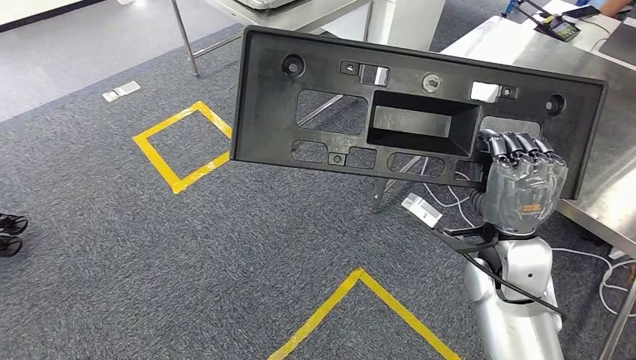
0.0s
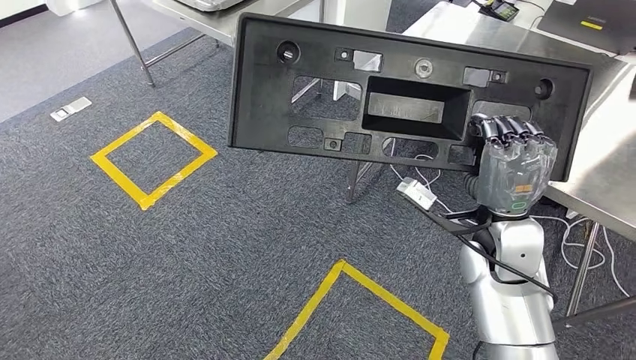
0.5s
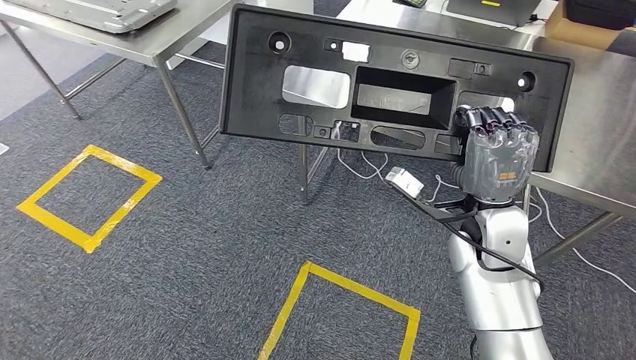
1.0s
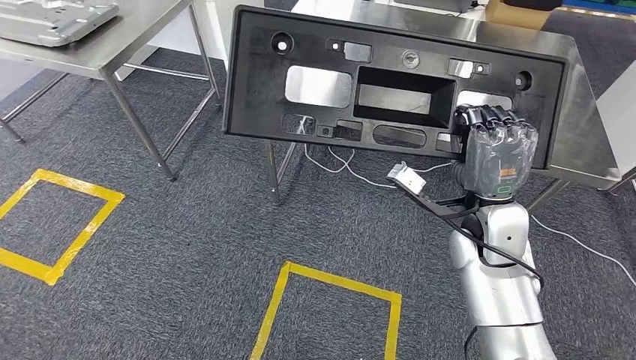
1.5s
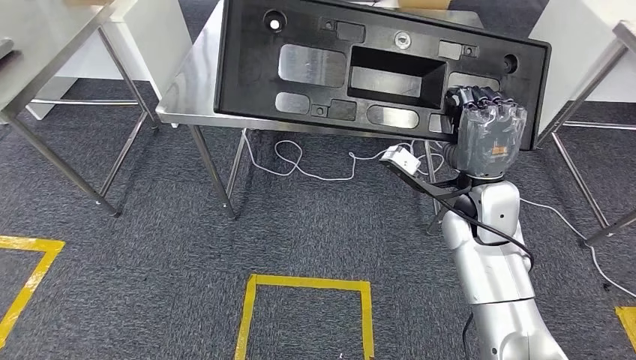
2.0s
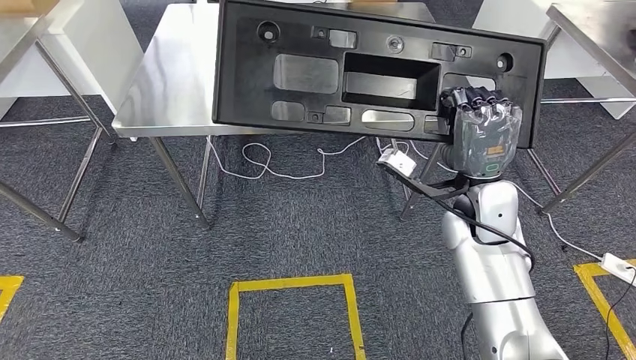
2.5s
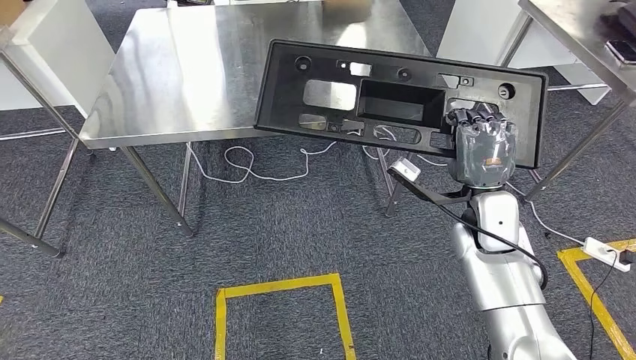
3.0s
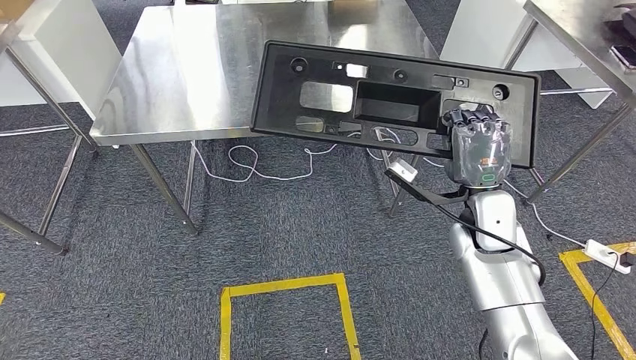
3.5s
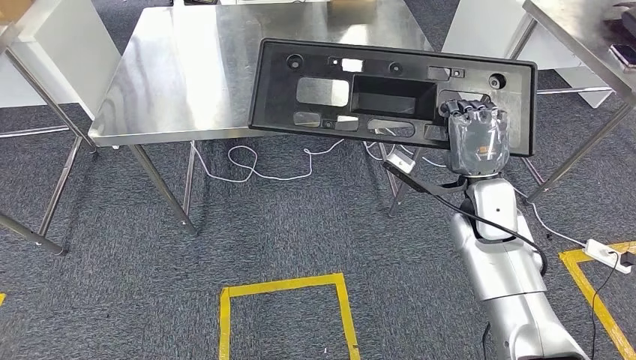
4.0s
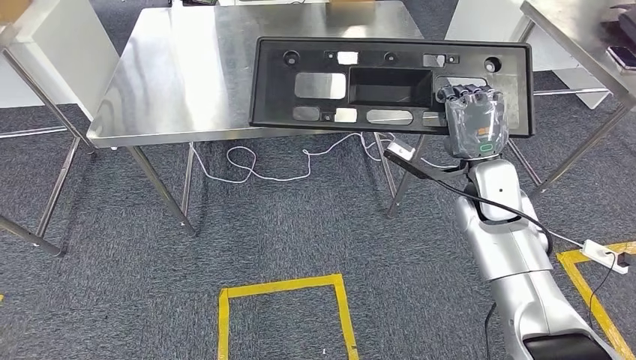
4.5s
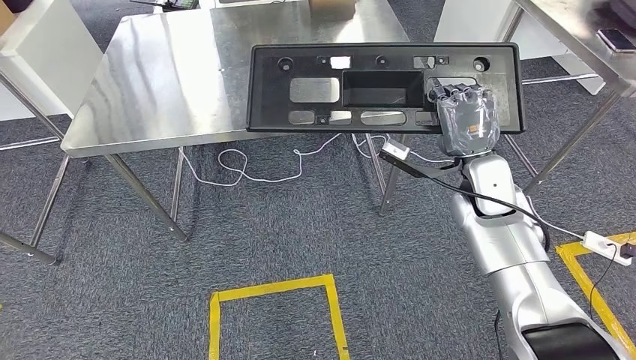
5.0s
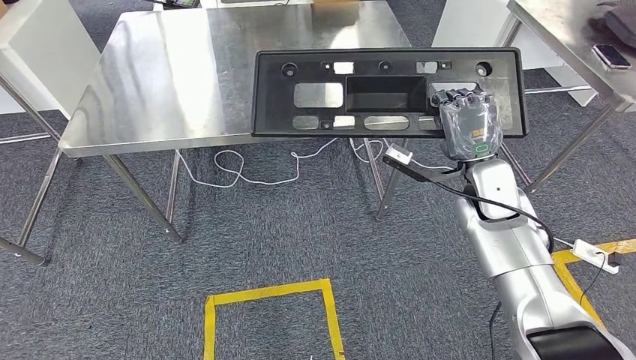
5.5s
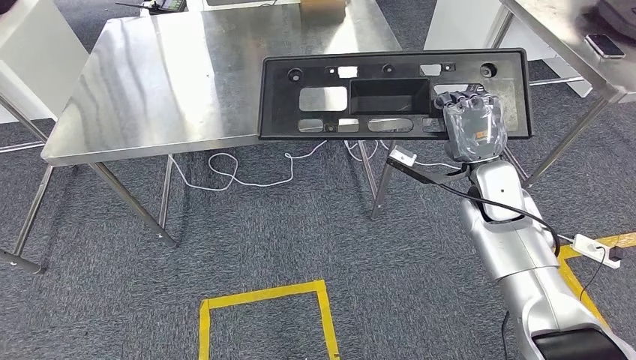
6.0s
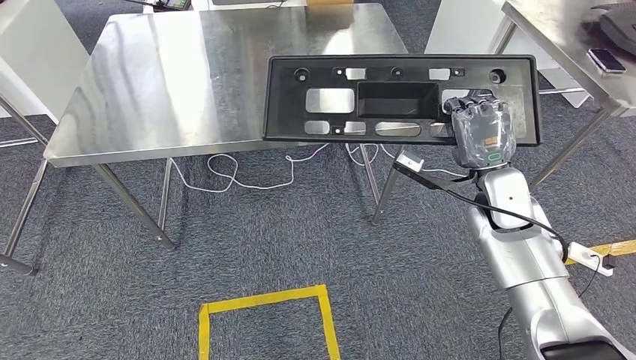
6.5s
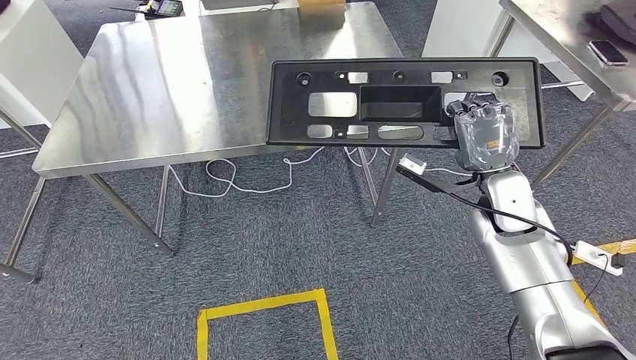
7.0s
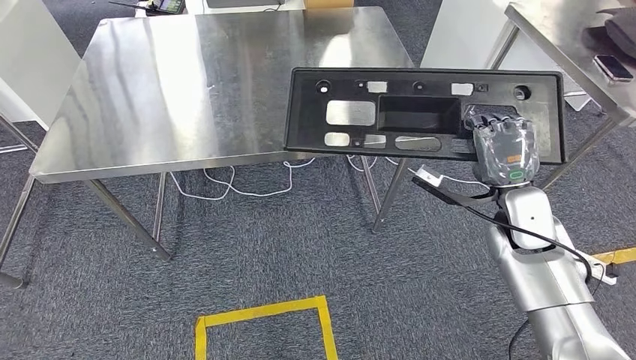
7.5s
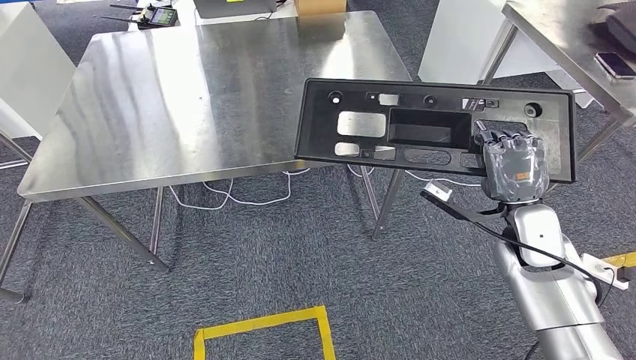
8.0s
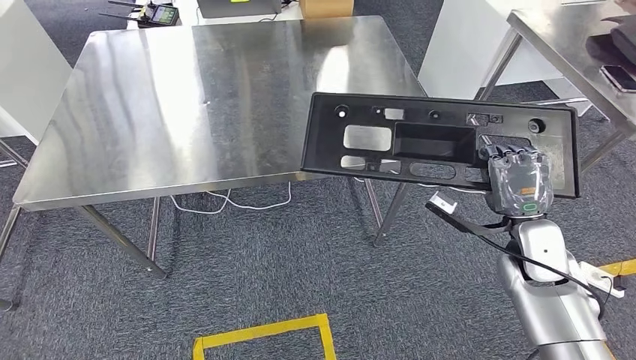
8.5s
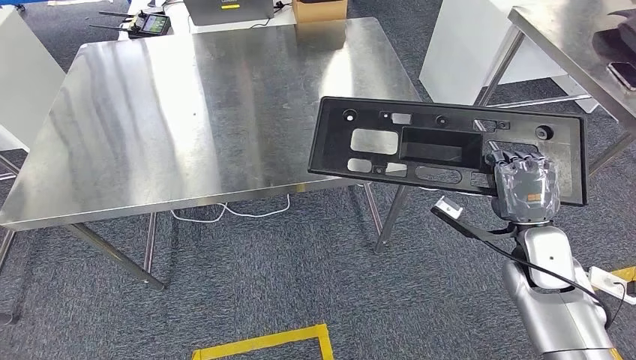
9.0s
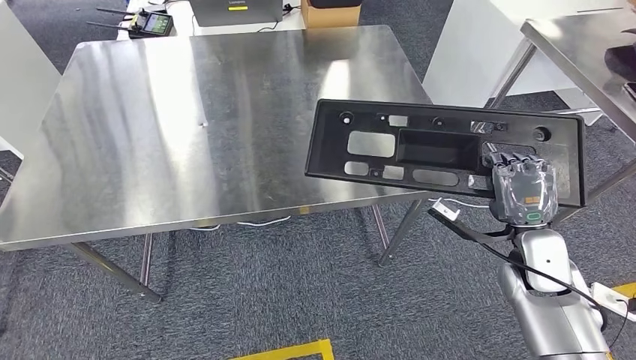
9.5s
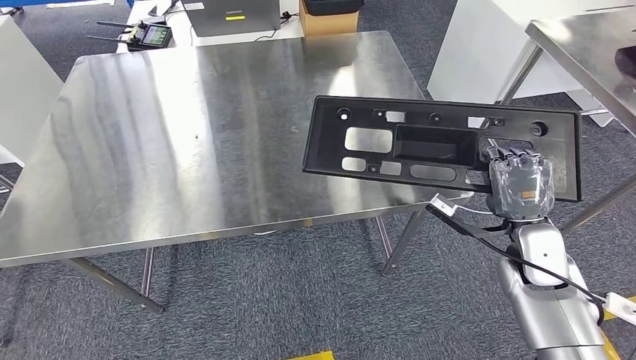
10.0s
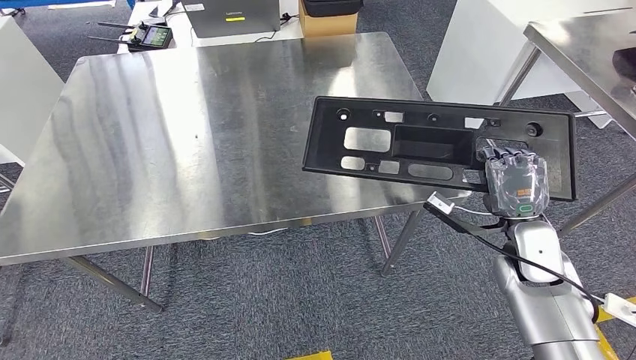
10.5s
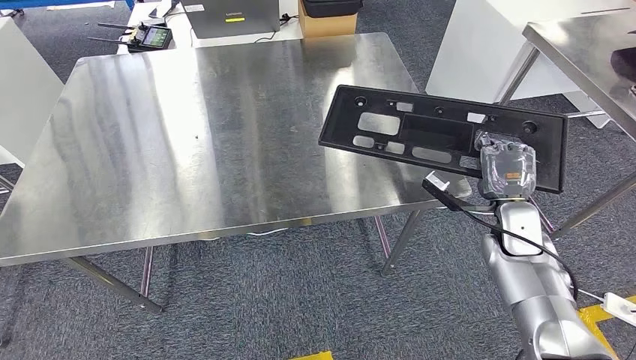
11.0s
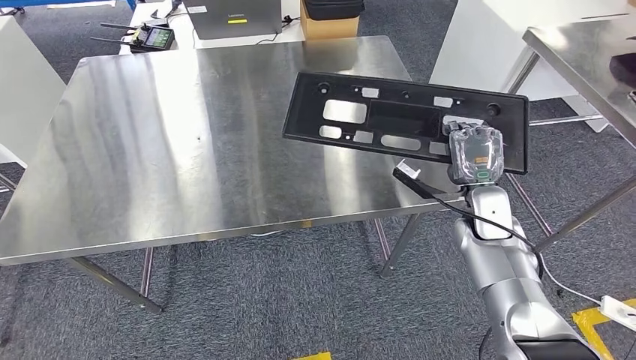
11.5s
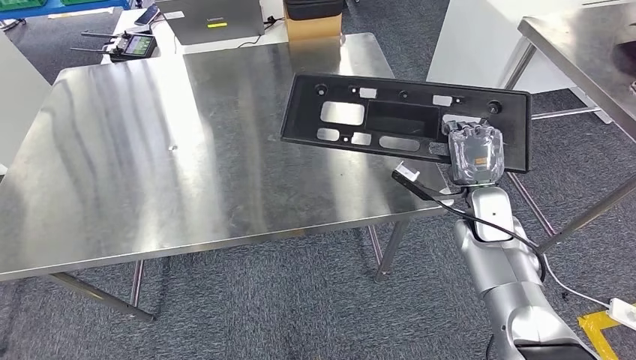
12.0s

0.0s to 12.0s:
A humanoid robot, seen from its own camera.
Step, 0.0s to 7.5s: Move the large material to the front of the workbench.

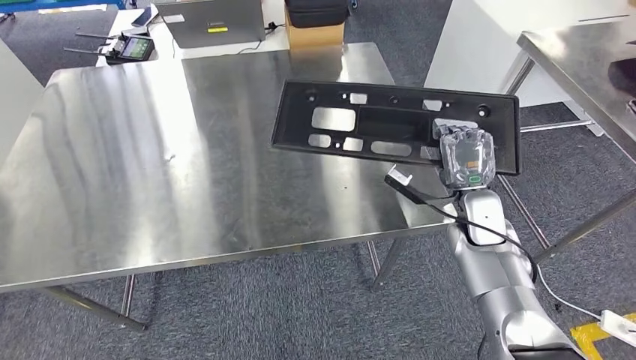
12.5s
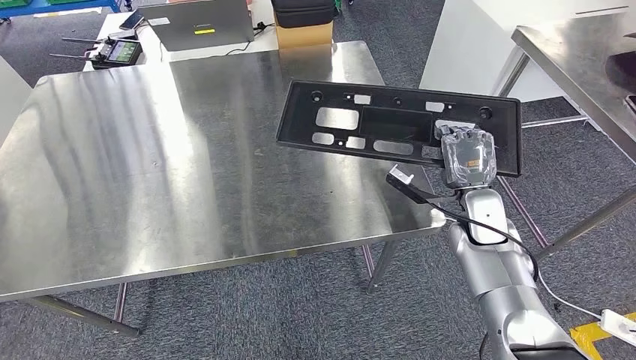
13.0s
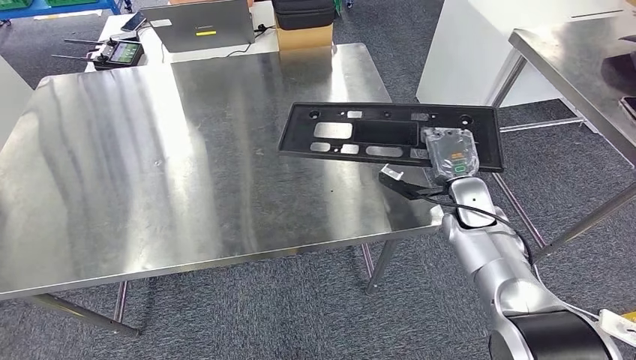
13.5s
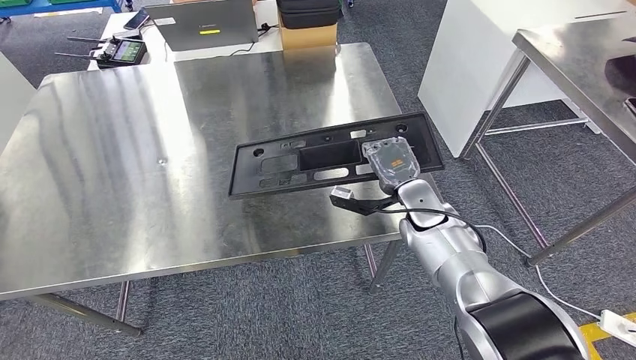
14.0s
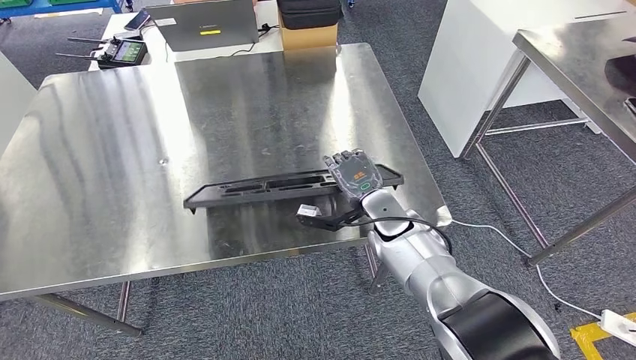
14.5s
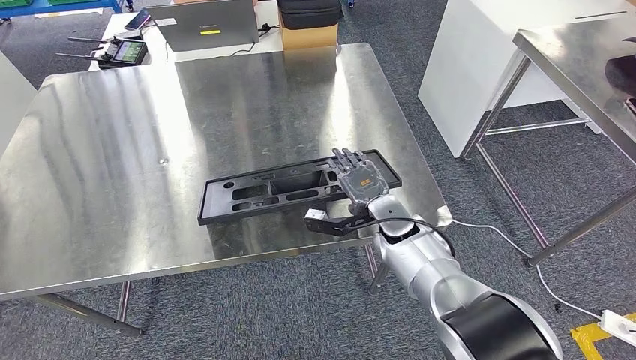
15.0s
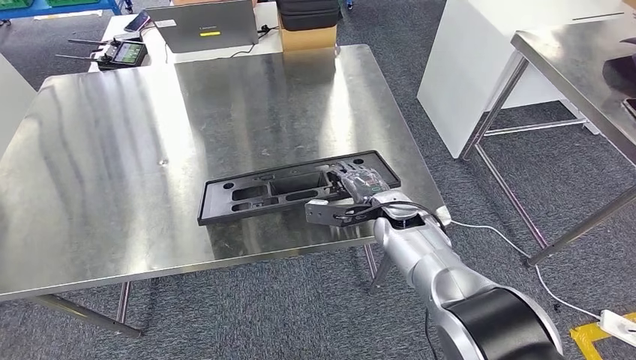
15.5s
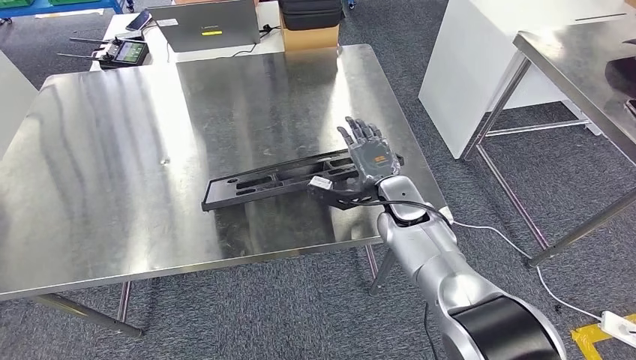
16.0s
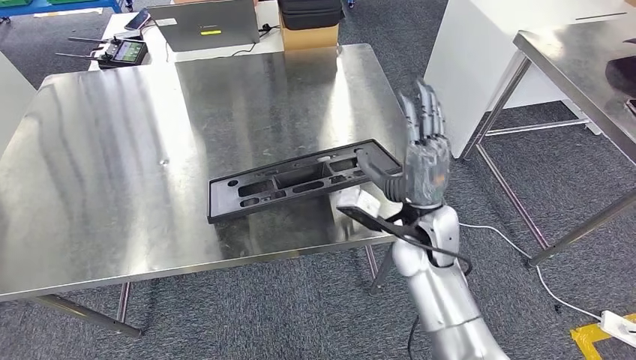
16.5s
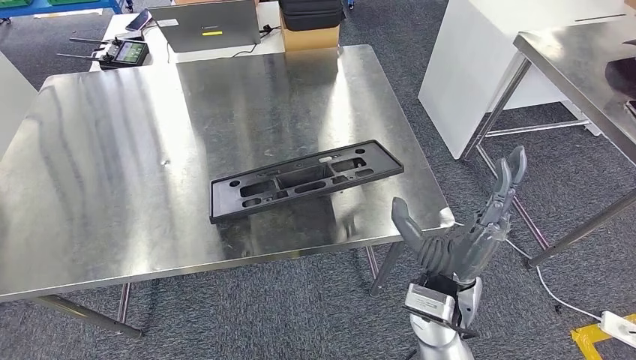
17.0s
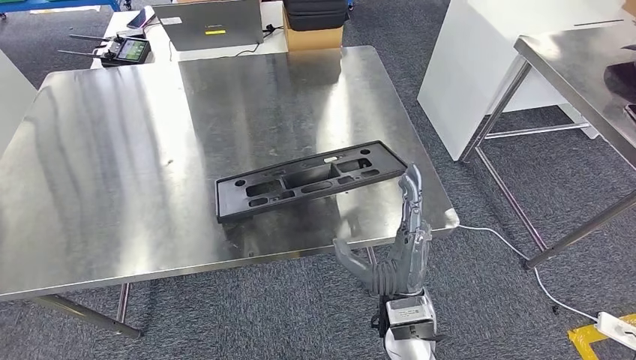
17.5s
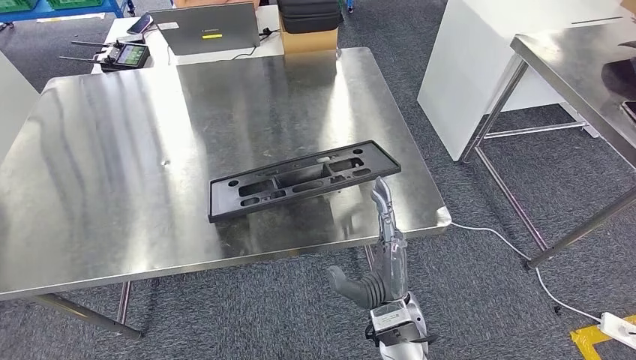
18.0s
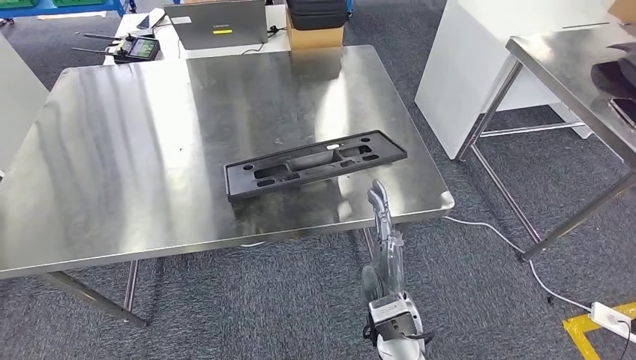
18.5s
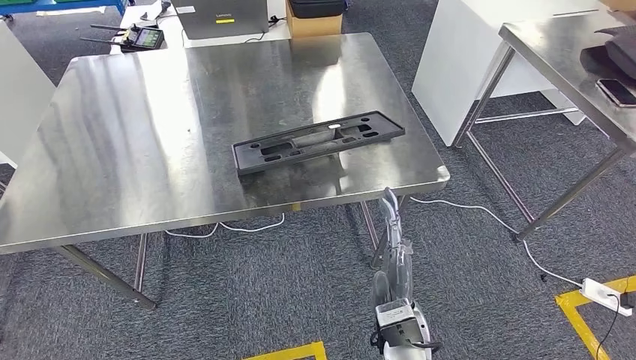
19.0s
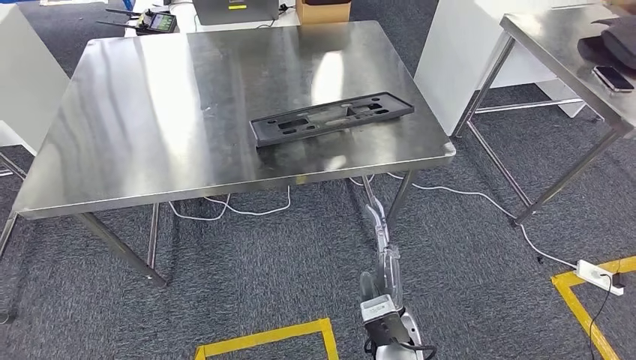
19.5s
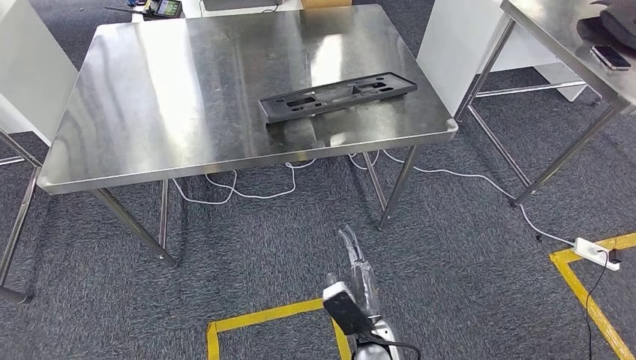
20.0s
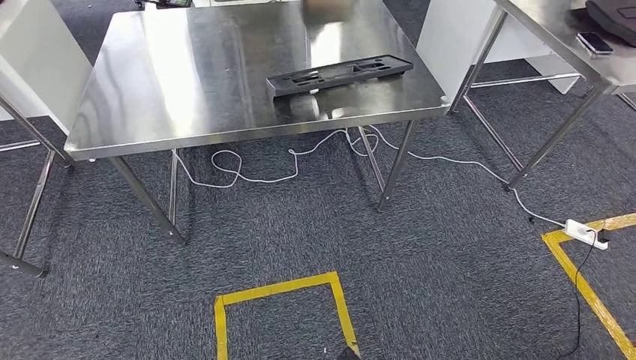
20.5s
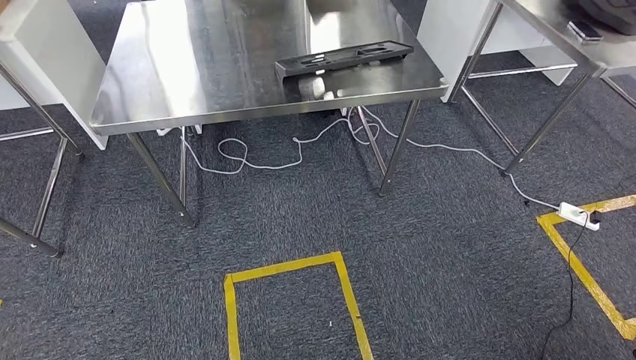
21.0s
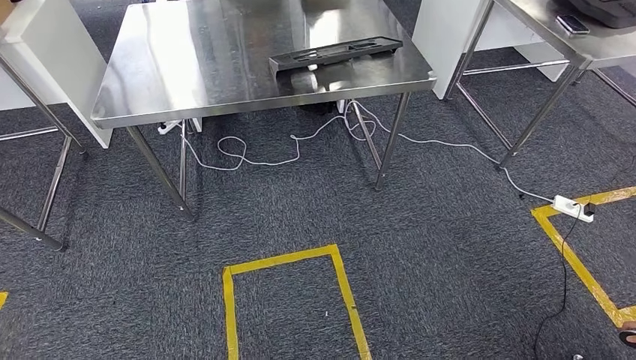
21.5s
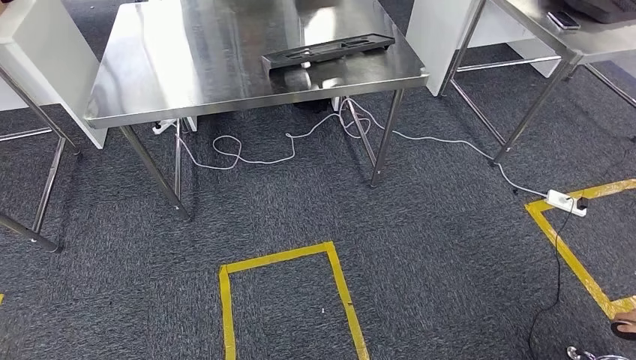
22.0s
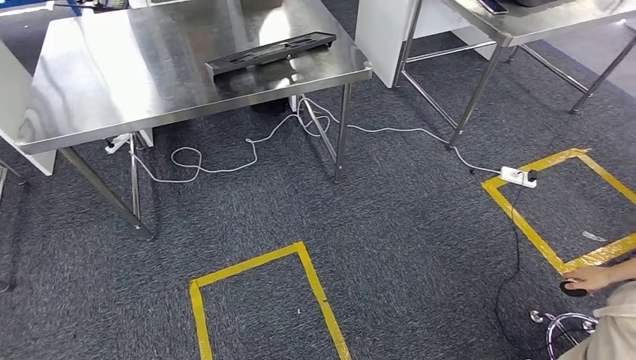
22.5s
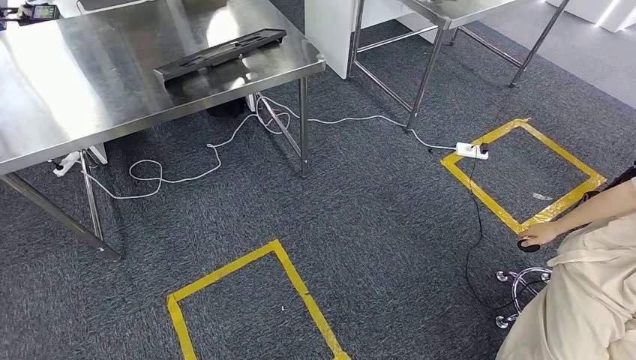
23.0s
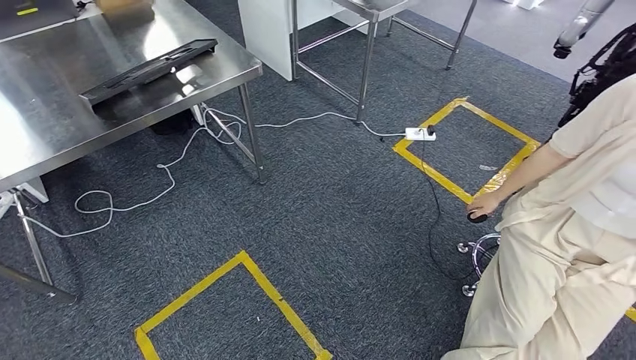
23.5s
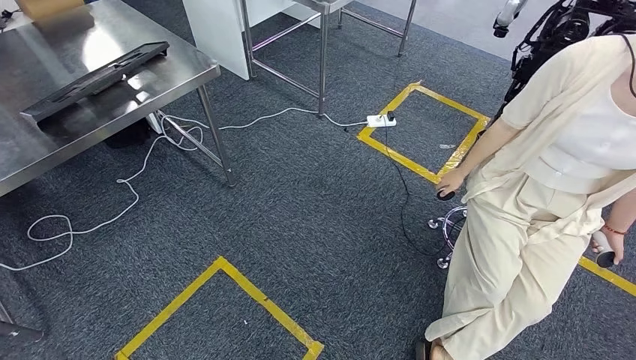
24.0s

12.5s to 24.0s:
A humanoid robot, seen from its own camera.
Step, 12.5s to 21.5s: Insert the large material into the corresponding hole on the workbench.
14.5s to 16.5s: The right hand heads backward and upward, covering approximately 10 cm.
